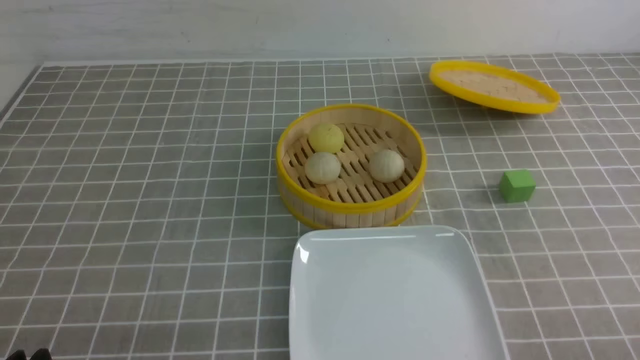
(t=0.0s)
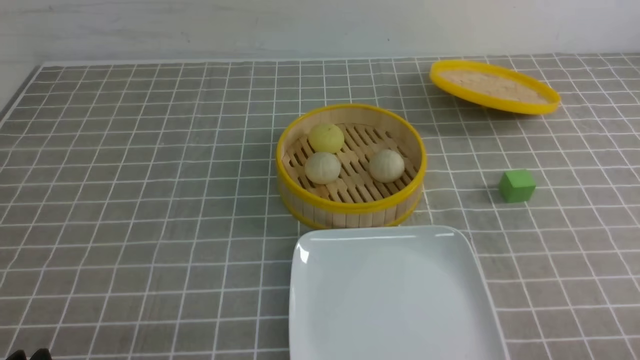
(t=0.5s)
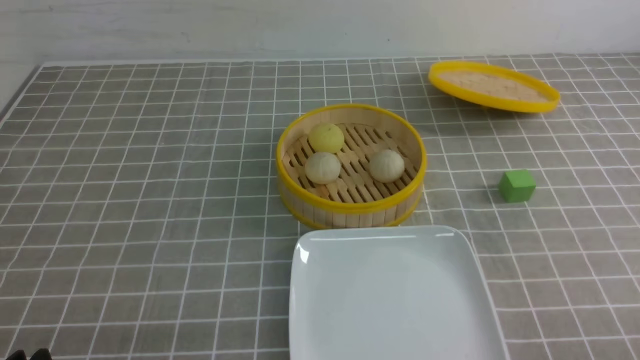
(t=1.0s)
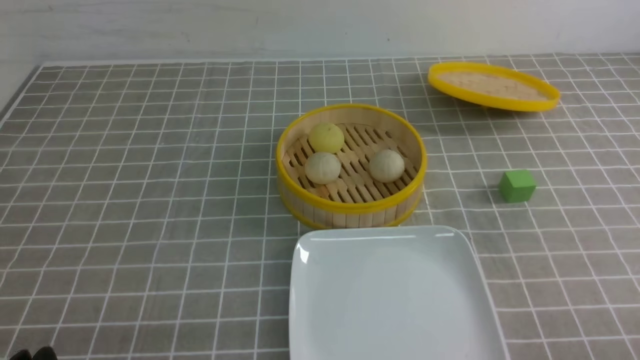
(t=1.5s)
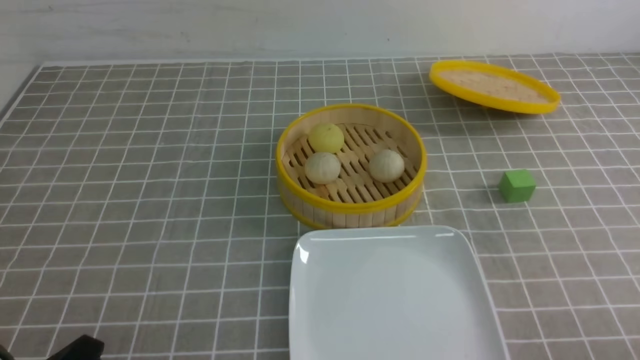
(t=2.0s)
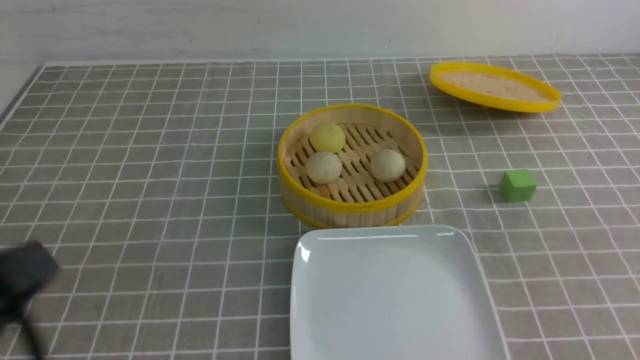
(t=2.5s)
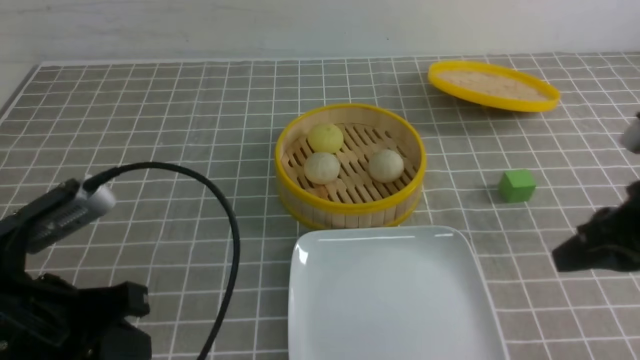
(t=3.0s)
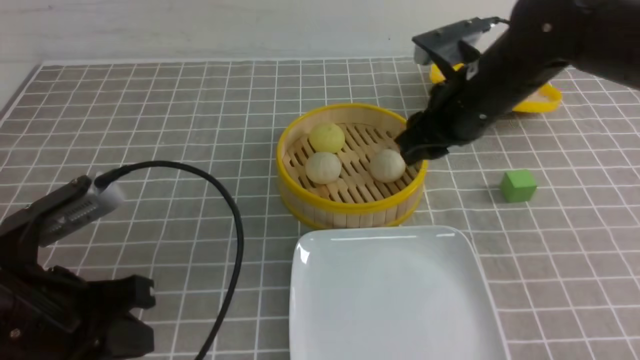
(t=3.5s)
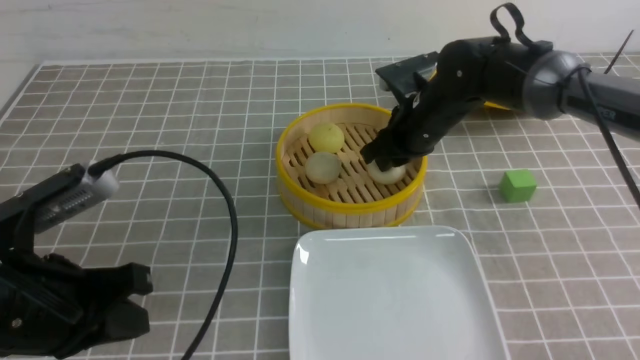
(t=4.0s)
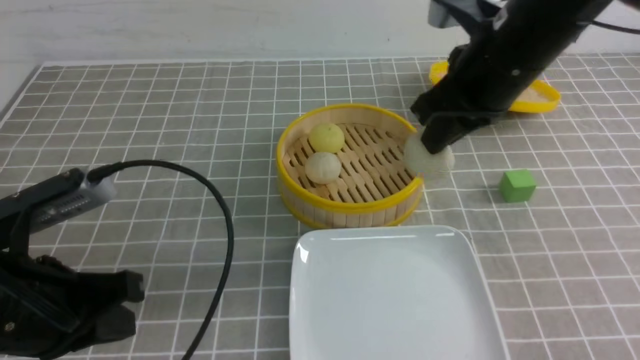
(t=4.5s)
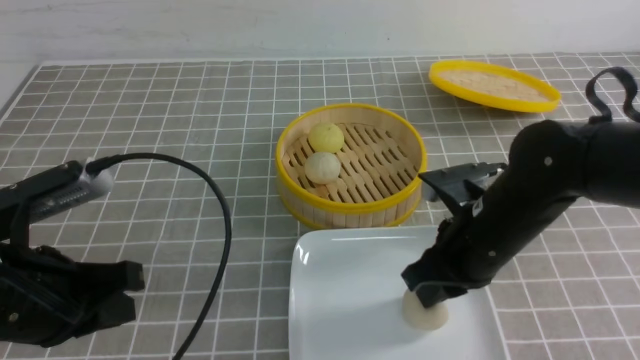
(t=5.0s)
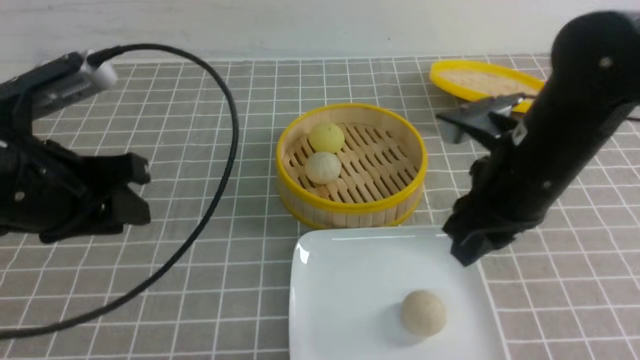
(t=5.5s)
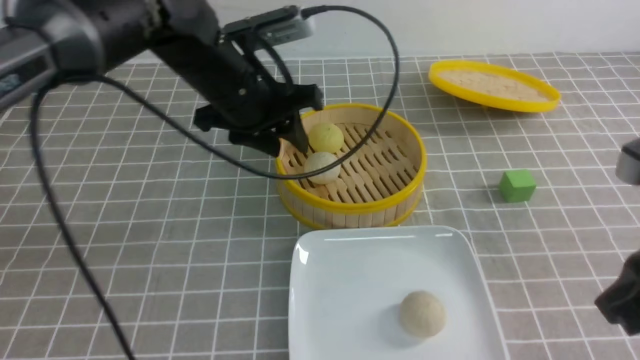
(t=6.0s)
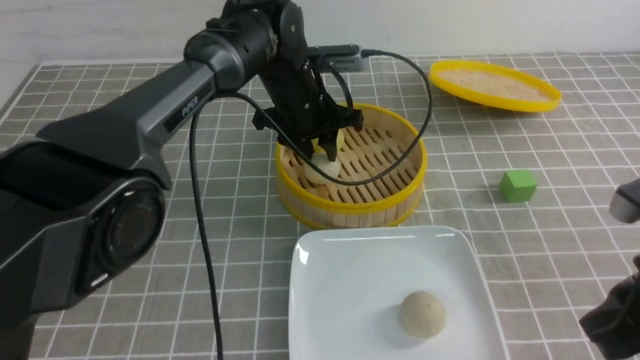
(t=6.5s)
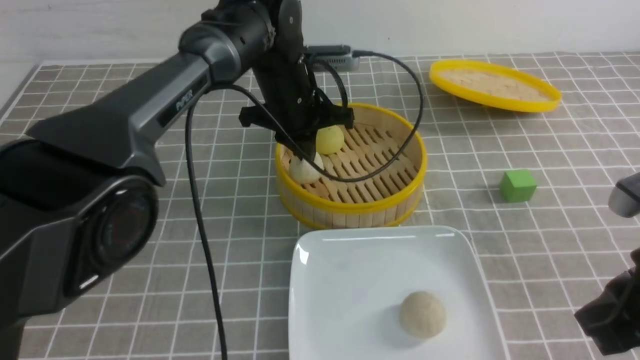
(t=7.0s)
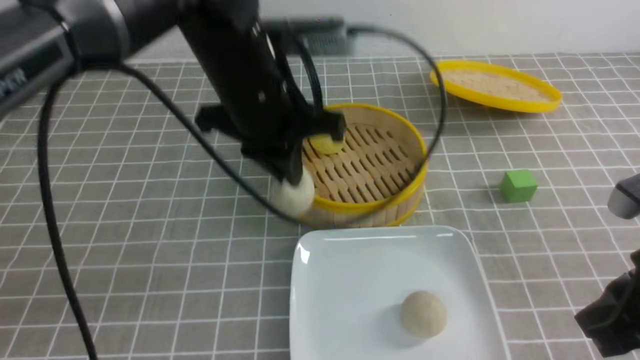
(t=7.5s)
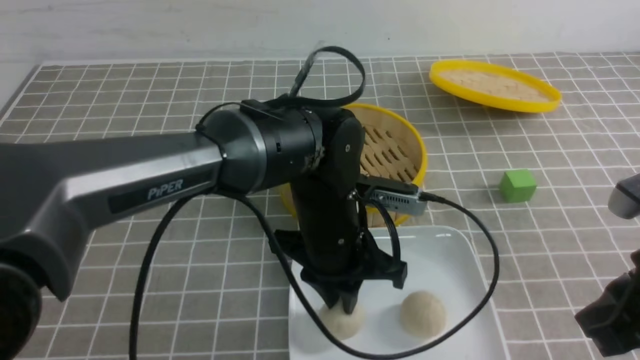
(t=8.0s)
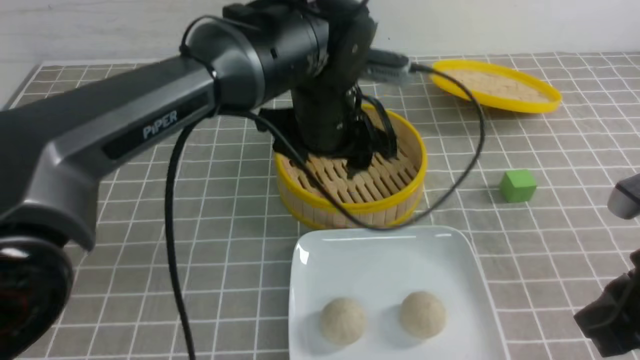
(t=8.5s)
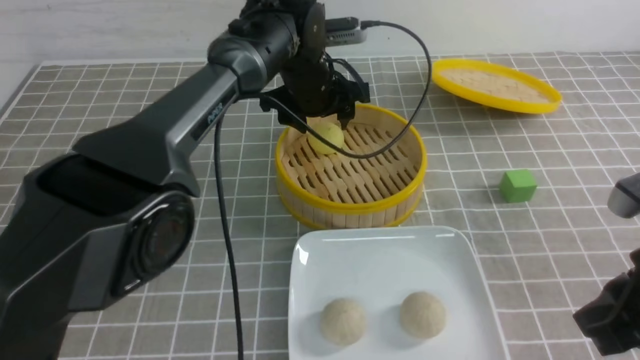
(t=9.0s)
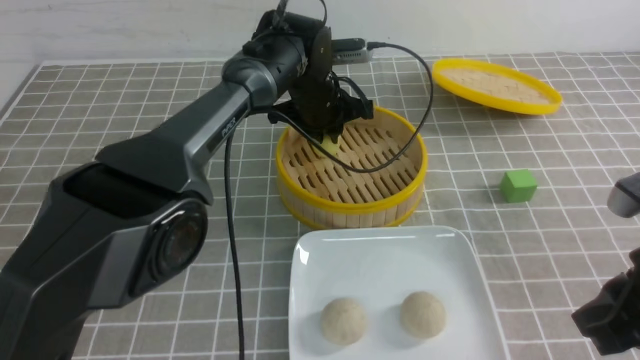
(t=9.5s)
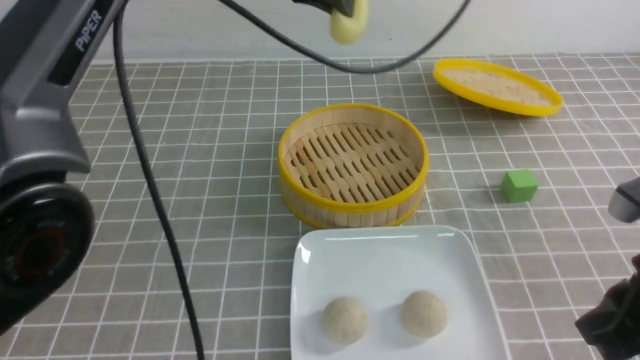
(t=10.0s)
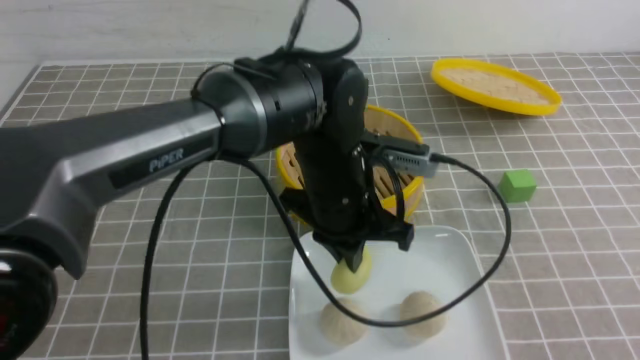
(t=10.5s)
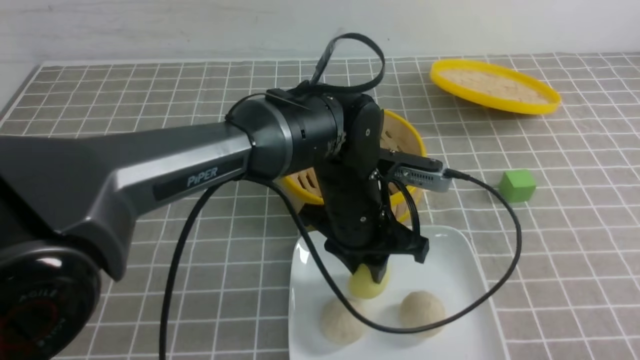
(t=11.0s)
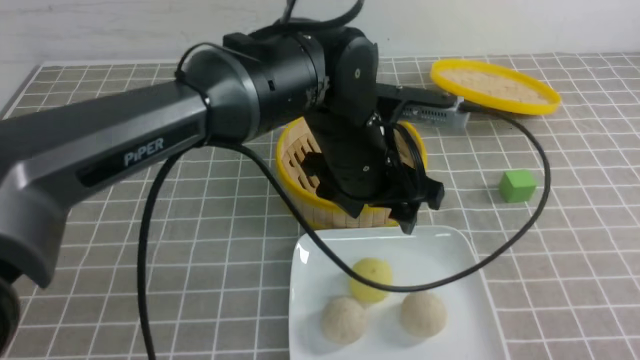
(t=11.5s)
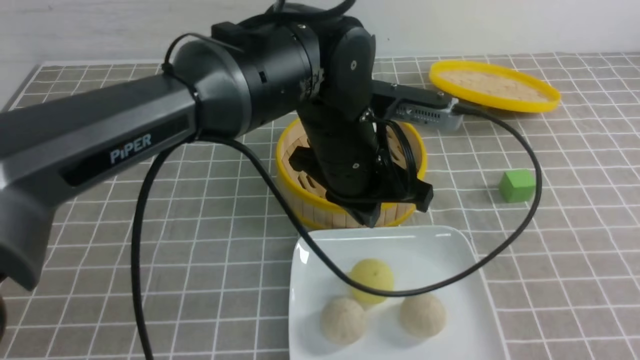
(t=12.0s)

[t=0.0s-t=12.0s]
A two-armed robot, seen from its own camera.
Step, t=0.0s to t=4.0s: use the right arm to grab the steamed stuffed bun that is closest to it.
Step, t=4.5s to t=5.0s: use the right arm to put the steamed stuffed bun into the plate.
Step, t=5.5s to t=6.5s: use the left arm to grab the steamed stuffed bun that is closest to it.
Step, t=7.5s to t=8.0s: use the left arm to put the steamed stuffed bun into the plate.
Step, t=8.5s to t=9.5s: use the left arm to grab the steamed stuffed bun that is closest to it.
Step, t=10.0s to t=11.0s: use the left arm to put the steamed stuffed bun into the plate.
t=2.0s to t=4.0s: The right gripper moves forward and to the left, about 40 cm, and closes and opens again, while the left gripper moves forward and upward, about 15 cm.
t=4.0s to t=6.0s: The left gripper is displaced forward and to the right by some 25 cm, and opens its fingers. The right gripper goes approximately 30 cm backward and to the right, and closes.
t=6.0s to t=8.0s: The left gripper moves backward, to the right and downward, roughly 15 cm.
t=8.0s to t=10.0s: The left gripper shifts roughly 20 cm upward and forward, and opens, then closes again.
t=10.0s to t=12.0s: The right gripper shifts about 15 cm backward and to the right. Meanwhile the left gripper goes roughly 15 cm downward and backward, and opens, then closes again.

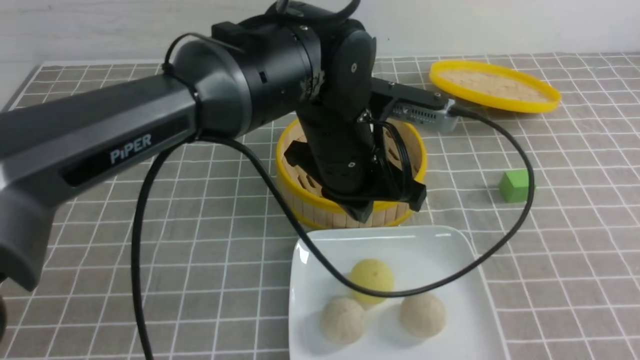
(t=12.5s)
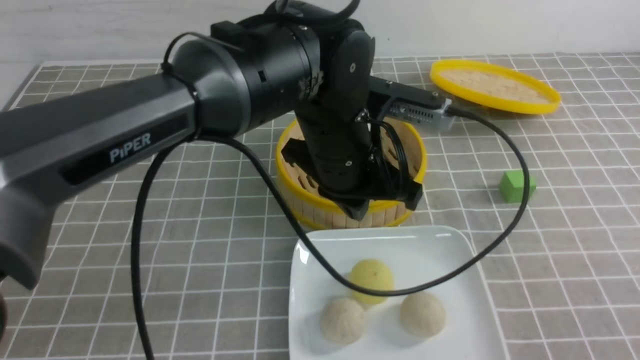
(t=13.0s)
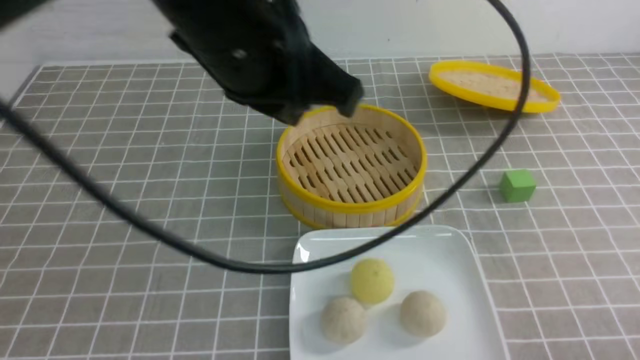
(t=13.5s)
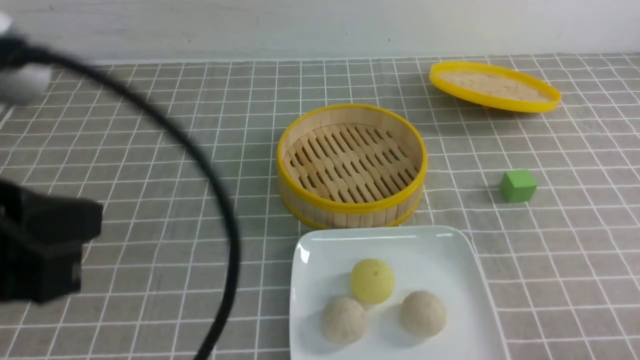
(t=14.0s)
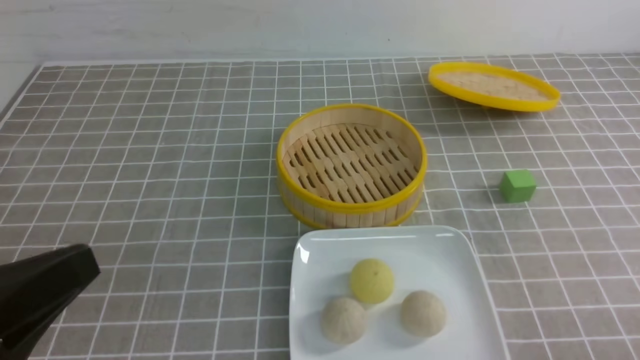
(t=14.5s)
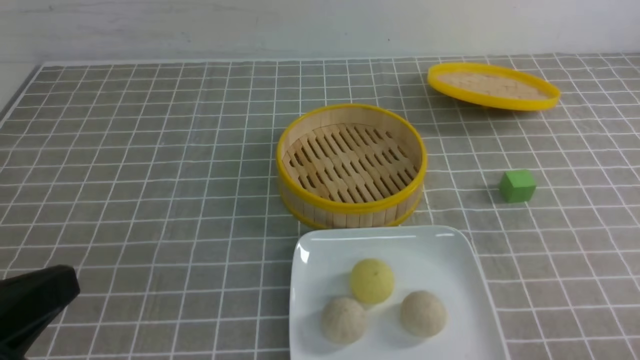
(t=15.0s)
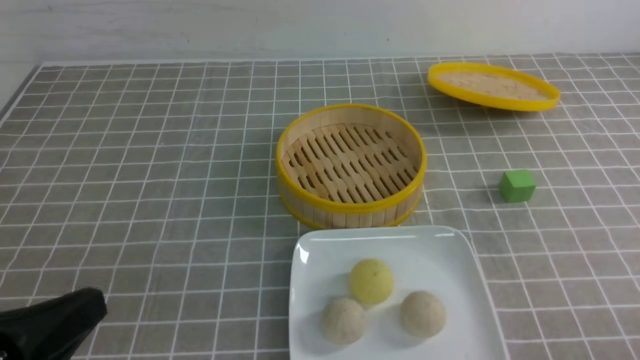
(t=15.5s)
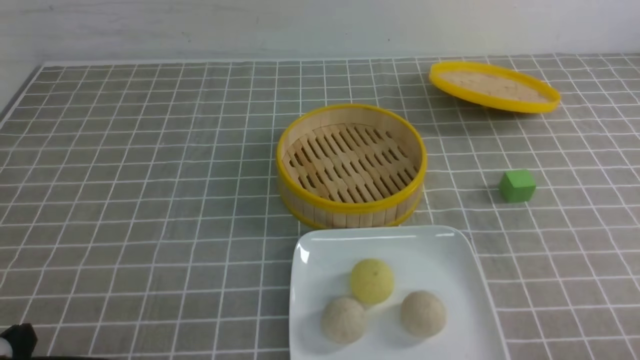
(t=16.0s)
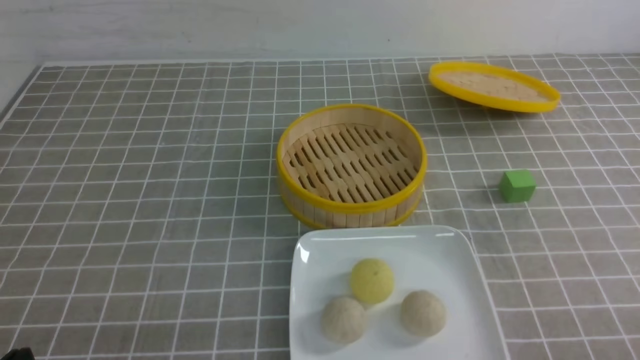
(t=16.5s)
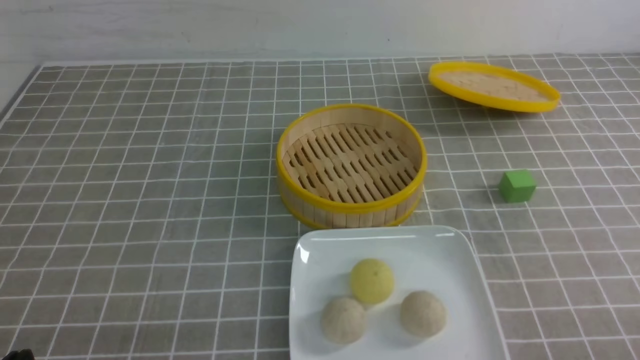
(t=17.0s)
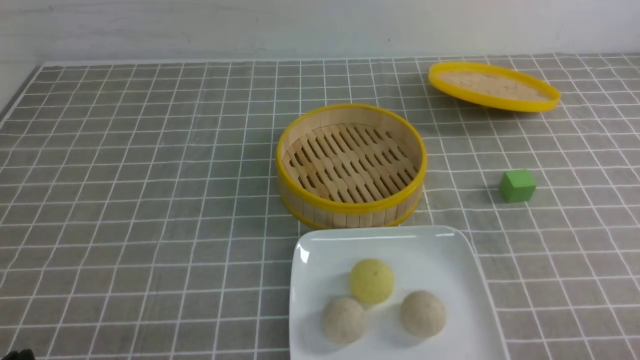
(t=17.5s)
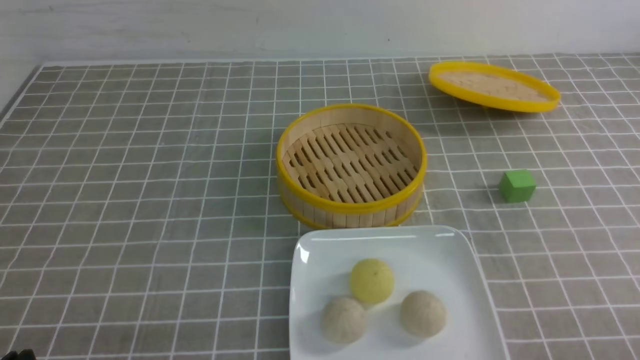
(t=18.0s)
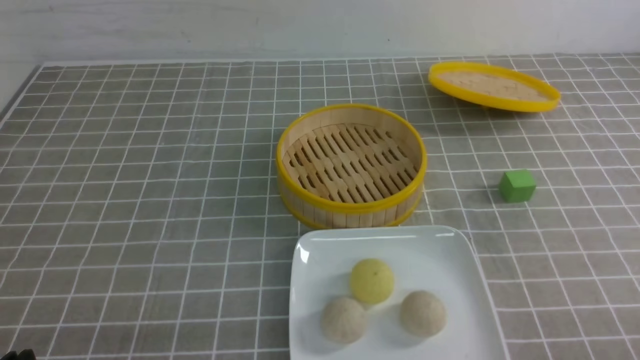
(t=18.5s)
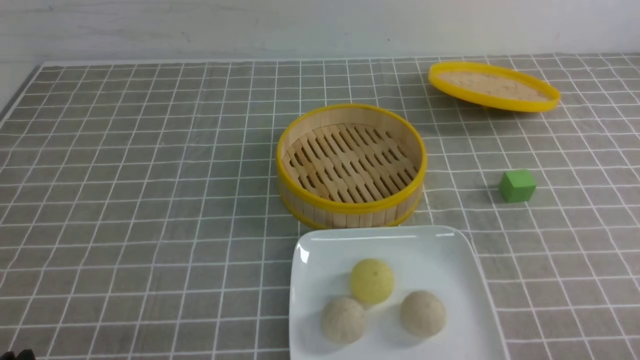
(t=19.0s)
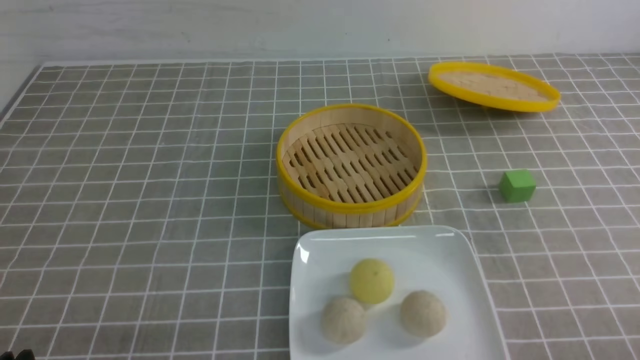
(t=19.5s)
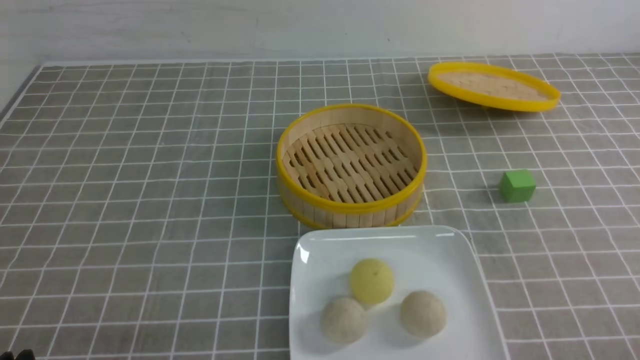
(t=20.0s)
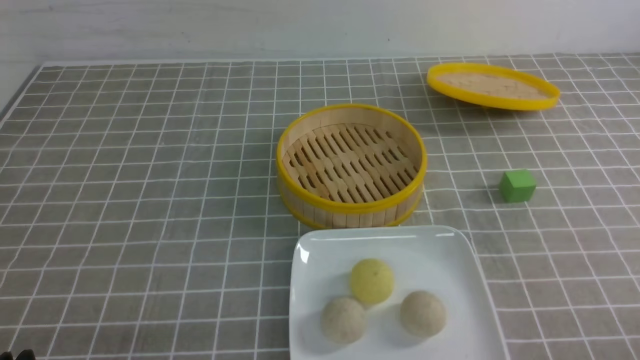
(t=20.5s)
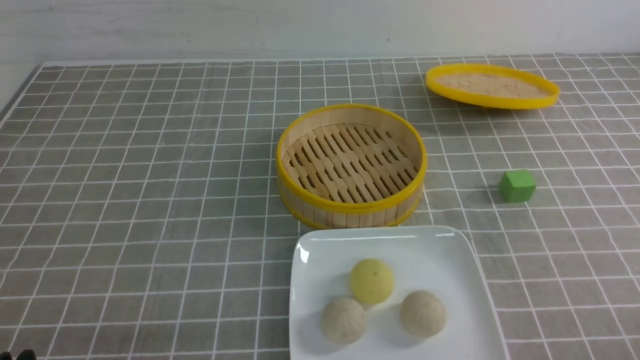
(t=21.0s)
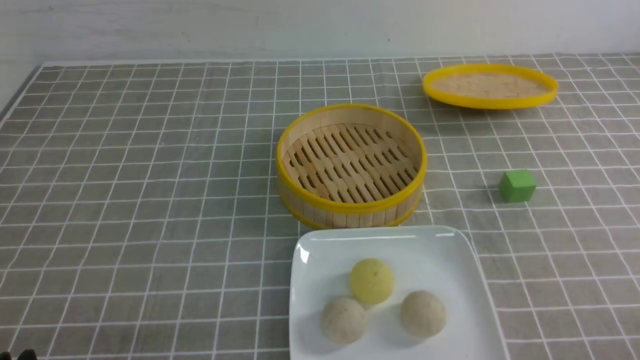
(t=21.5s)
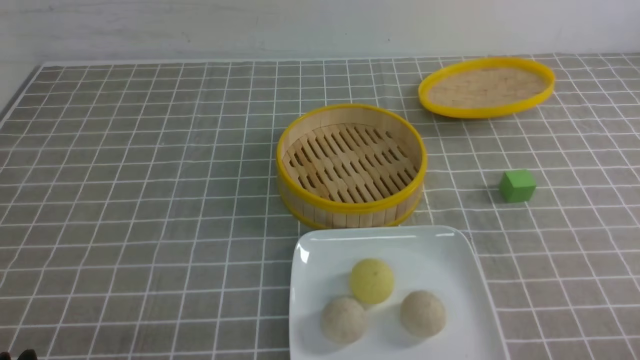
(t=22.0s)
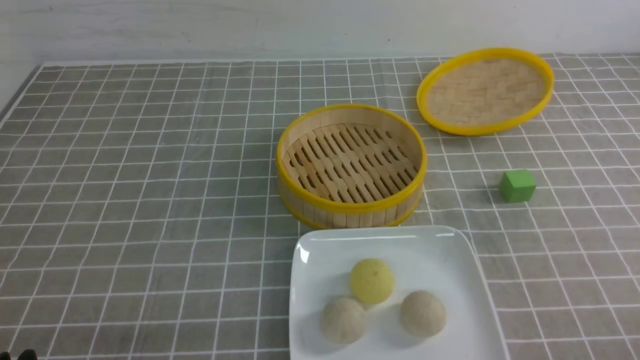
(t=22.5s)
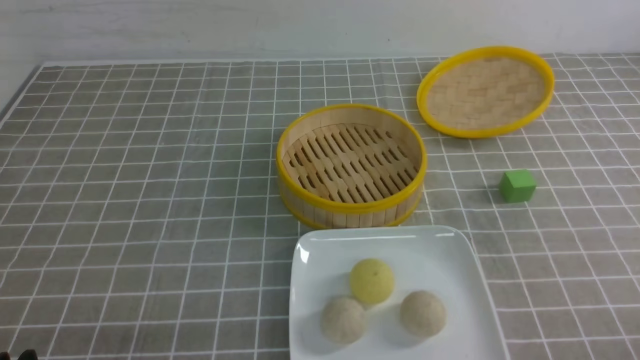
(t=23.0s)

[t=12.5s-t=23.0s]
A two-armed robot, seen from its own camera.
t=12.5s to t=14.5s: The left gripper travels to the left and backward by roughly 35 cm; the right gripper goes some 15 cm downward.
t=14.5s to t=16.5s: The left gripper travels downward by roughly 15 cm.
t=16.5s to t=23.0s: Both grippers stay put.
